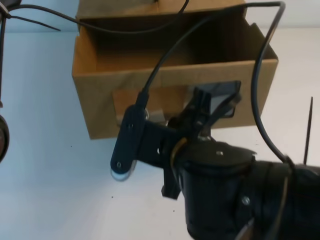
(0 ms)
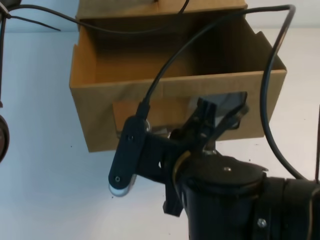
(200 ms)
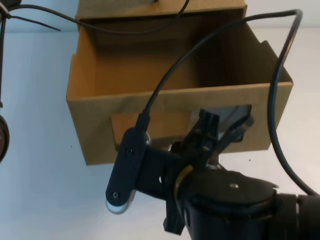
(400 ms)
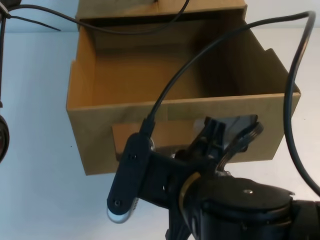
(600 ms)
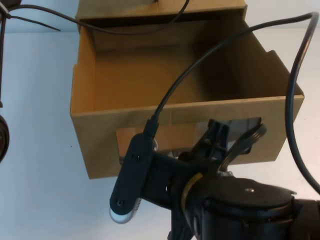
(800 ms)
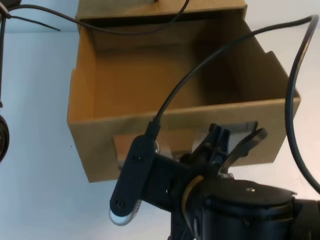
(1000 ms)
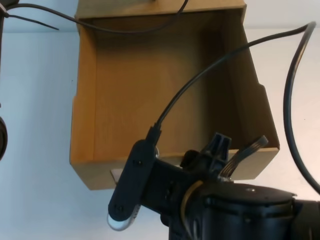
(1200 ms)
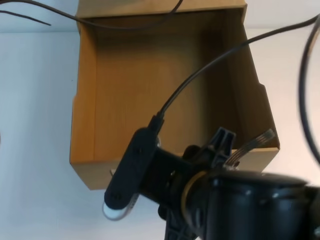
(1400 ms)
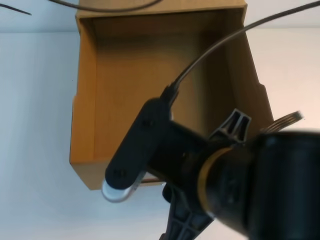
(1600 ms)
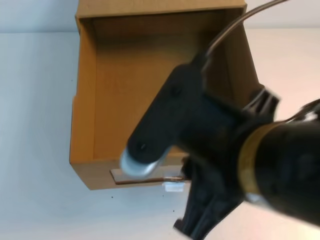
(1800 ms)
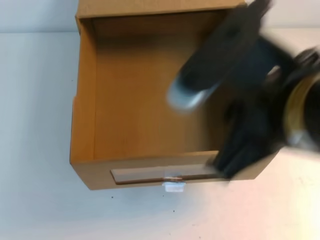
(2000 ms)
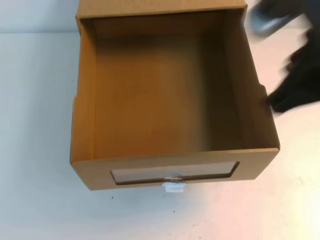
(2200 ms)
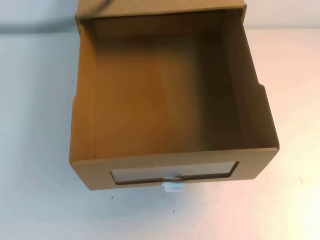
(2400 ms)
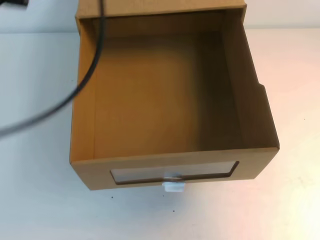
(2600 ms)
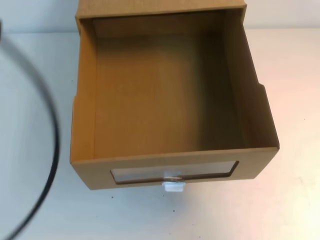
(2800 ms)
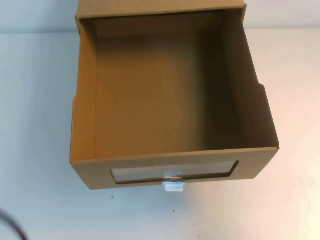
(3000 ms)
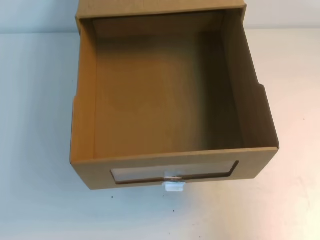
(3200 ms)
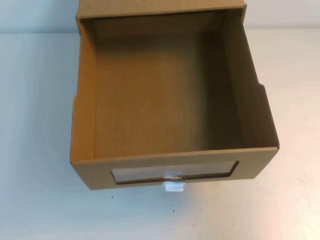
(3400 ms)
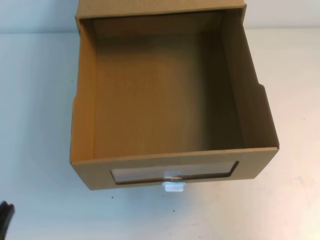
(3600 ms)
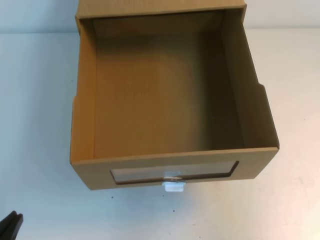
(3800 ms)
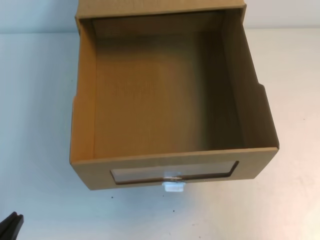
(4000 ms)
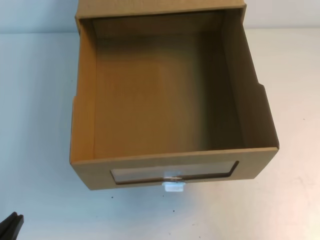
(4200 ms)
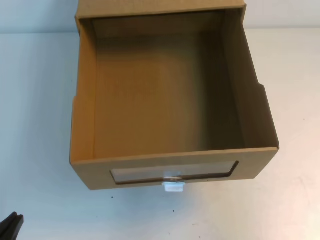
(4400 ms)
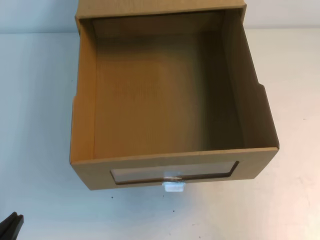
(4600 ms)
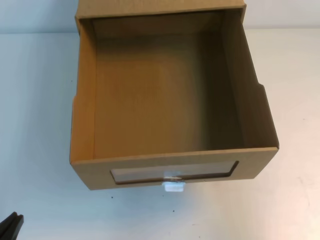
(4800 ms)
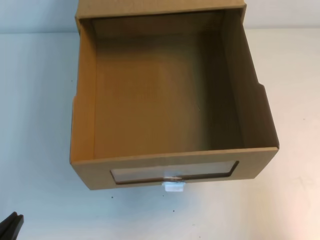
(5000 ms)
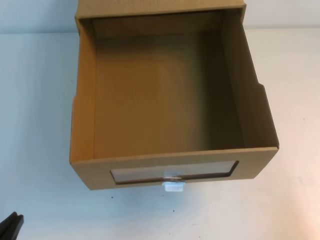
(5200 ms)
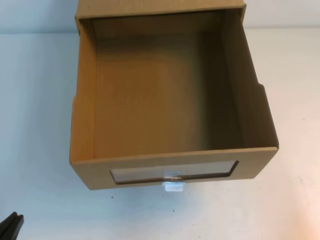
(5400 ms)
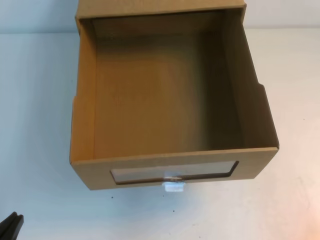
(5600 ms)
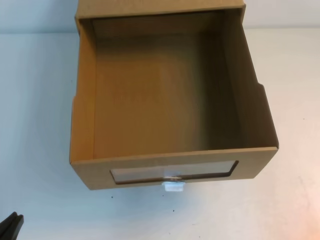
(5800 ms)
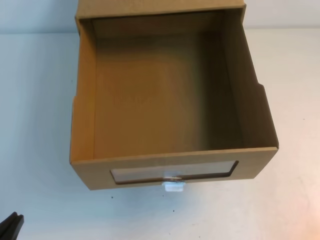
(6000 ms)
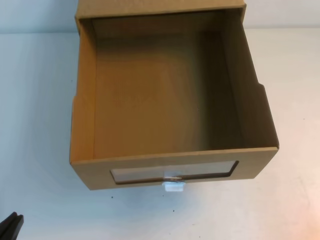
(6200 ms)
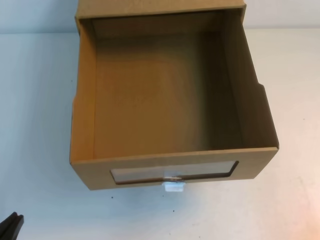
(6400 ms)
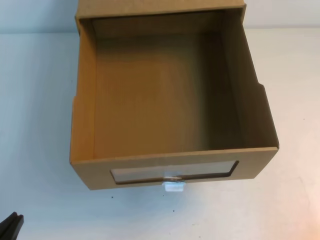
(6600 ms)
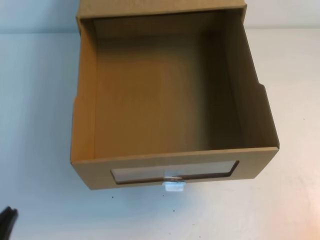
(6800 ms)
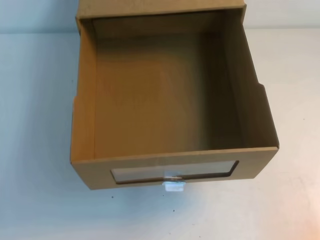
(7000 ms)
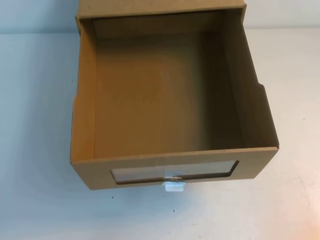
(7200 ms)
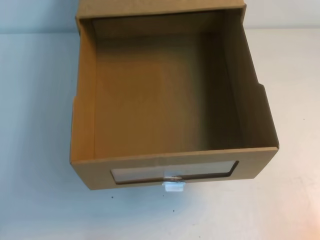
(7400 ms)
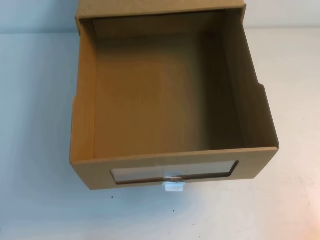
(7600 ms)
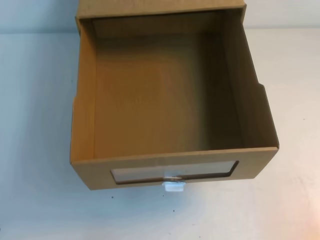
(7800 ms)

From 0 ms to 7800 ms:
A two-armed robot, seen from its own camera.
Task of the whole recording: open the shoebox on the table.
Step, from 0 ms to 7800 ms: Open the shoe box.
From 0 ms to 1600 ms: The right gripper moves backward, approximately 10 cm, and opens.
From 1600 ms to 3200 ms: The right gripper travels to the right by about 25 cm, and closes its fingers. The left gripper travels backward and to the left by roughly 35 cm.
From 3200 ms to 4600 ms: The left gripper heads downward, covering about 20 cm.
From 4600 ms to 6200 ms: The right gripper is displaced downward by some 15 cm.

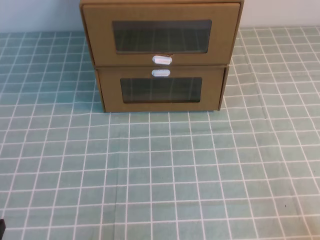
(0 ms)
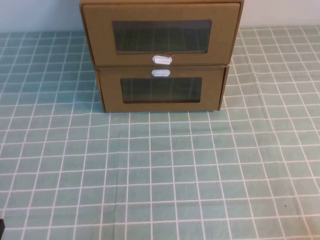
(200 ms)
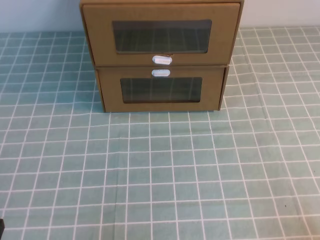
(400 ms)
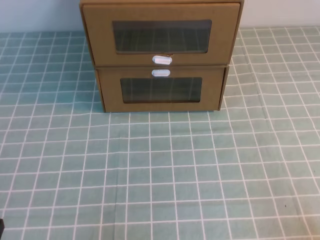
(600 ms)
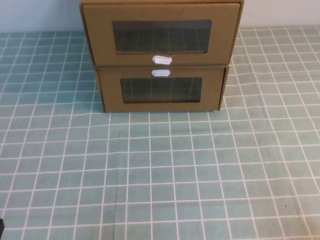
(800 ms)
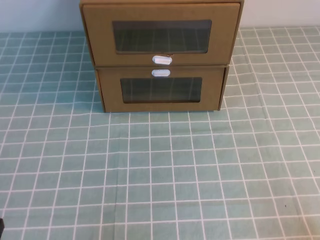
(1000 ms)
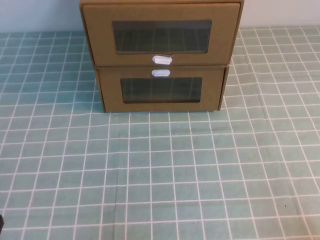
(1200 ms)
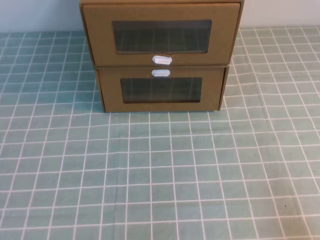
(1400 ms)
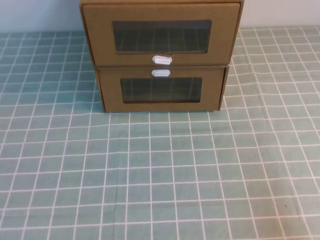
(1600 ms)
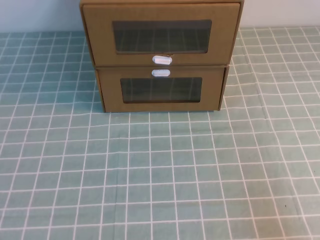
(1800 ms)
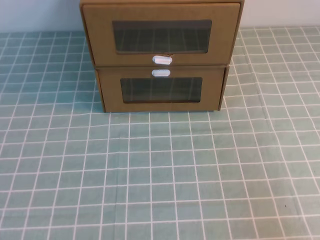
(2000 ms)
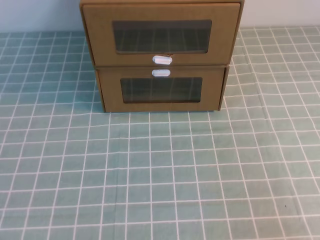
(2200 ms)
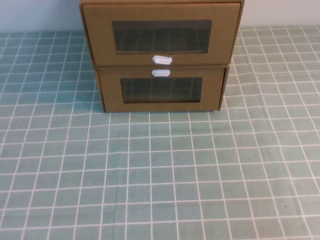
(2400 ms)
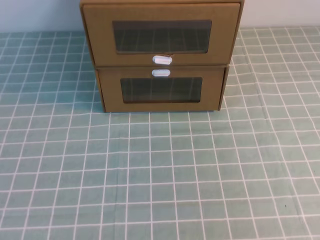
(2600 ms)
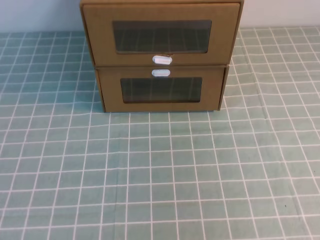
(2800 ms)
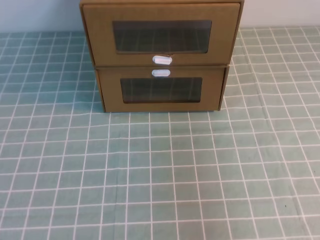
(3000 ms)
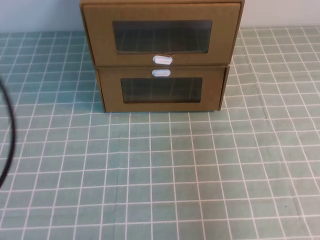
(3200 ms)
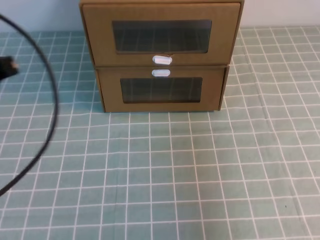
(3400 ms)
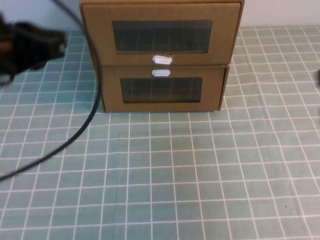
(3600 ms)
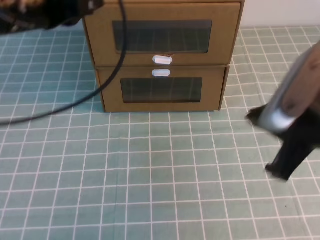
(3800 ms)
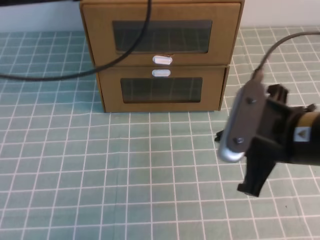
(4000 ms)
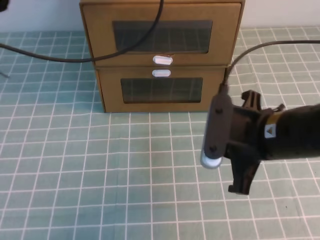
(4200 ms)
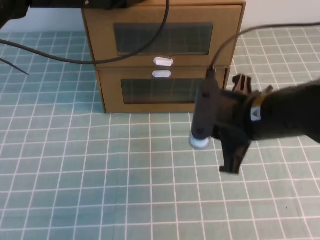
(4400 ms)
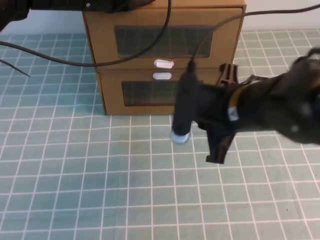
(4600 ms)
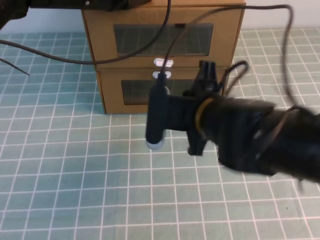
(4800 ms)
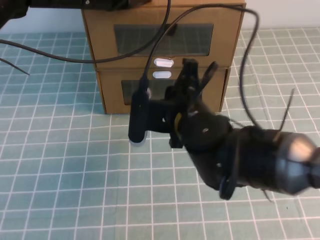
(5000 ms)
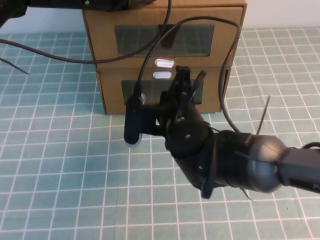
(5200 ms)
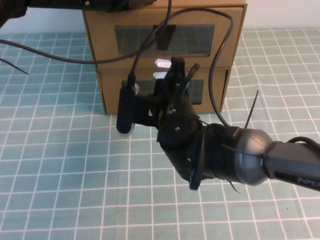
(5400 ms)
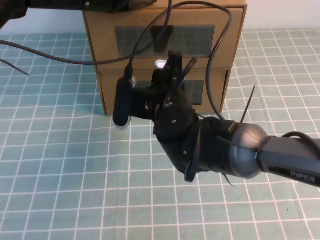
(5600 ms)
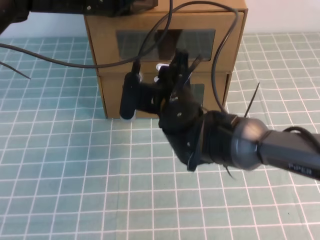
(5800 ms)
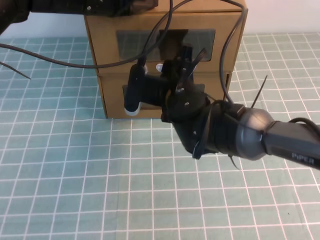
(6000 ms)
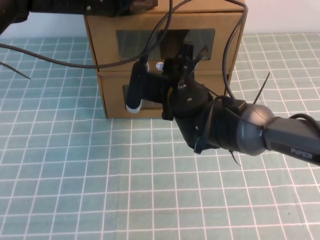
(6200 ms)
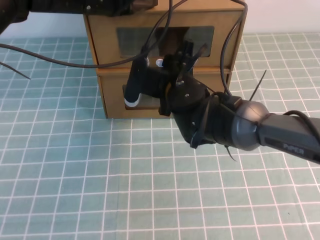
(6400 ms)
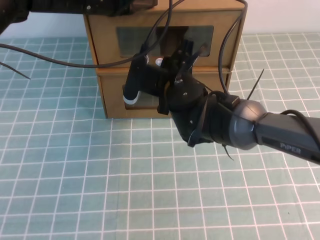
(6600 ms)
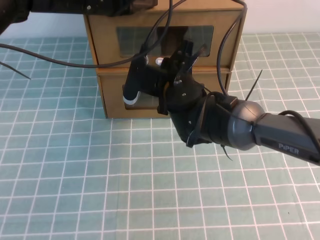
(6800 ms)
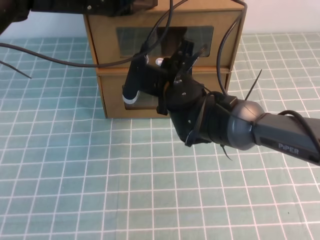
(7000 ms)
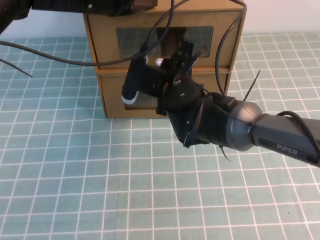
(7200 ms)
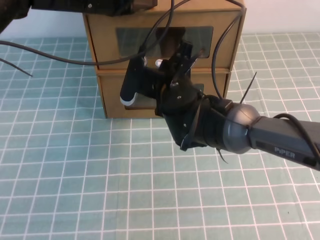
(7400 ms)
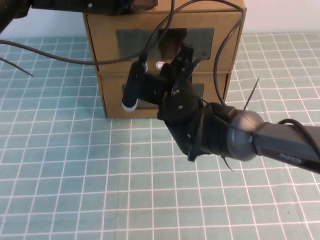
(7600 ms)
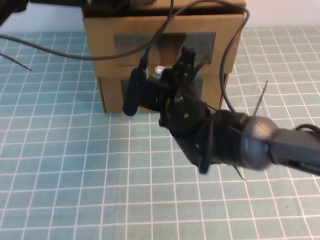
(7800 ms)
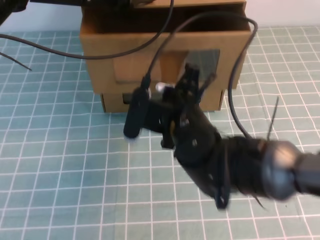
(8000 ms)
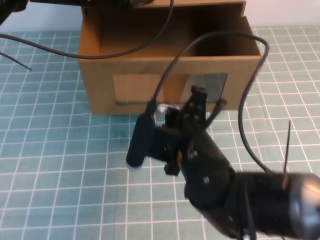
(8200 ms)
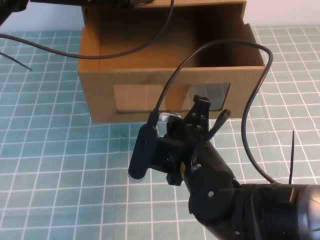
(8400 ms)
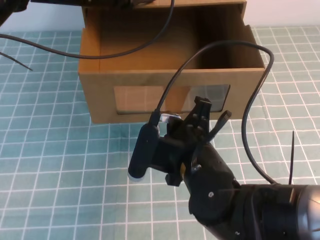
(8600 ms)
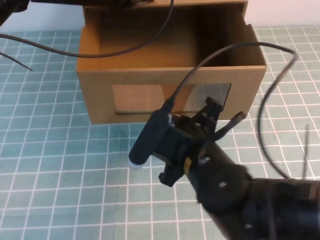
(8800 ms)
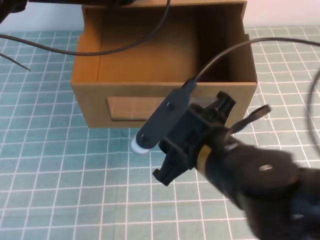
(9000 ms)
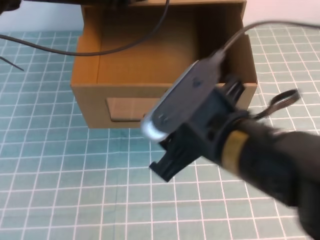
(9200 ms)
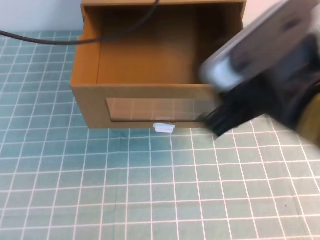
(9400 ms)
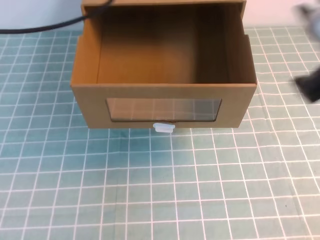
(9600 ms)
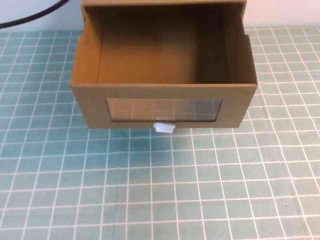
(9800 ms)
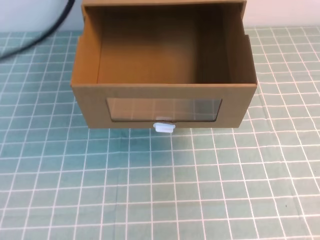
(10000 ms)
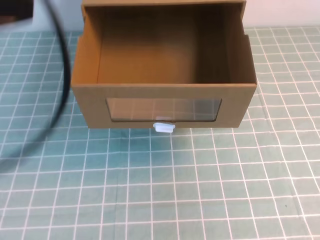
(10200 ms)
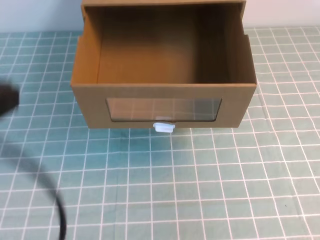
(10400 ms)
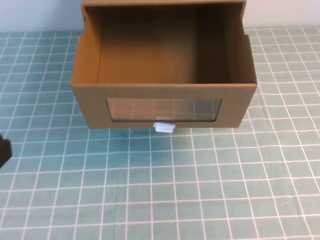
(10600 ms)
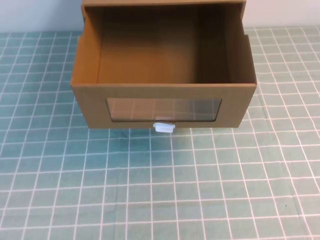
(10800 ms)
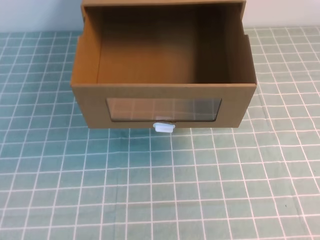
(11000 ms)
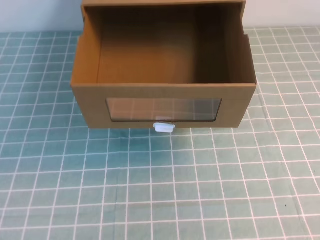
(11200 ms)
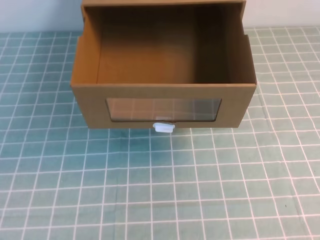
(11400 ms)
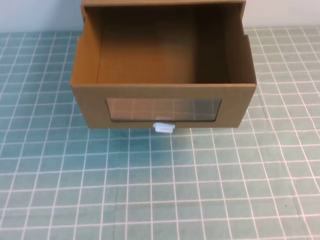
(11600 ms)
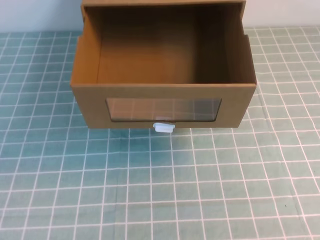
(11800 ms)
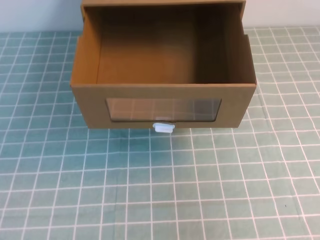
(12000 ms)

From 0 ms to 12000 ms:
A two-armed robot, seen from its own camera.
Task of the whole recording: open the shoebox on the cyan tablecloth.
From 1600 ms to 3000 ms: The two grippers go approximately 20 cm upward.
From 3000 ms to 4400 ms: The right gripper heads to the left, forward and downward, covering about 30 cm; the left gripper heads forward and to the right, covering approximately 40 cm.
From 4400 ms to 6000 ms: The right gripper is displaced to the left and forward by some 15 cm, and opens.
From 6000 ms to 7600 ms: The right gripper closes.
From 7600 ms to 9000 ms: The right gripper shifts some 15 cm backward, and opens.
From 9000 ms to 10400 ms: The right gripper goes roughly 25 cm to the right, backward and upward, and closes. The left gripper heads backward, covering some 30 cm.
From 10400 ms to 12000 ms: The left gripper travels downward by some 15 cm.

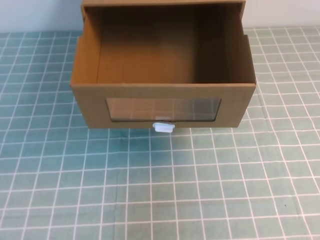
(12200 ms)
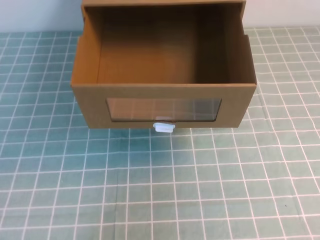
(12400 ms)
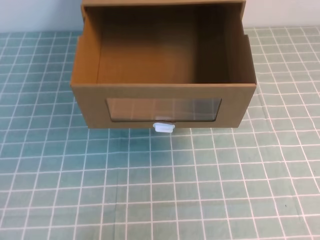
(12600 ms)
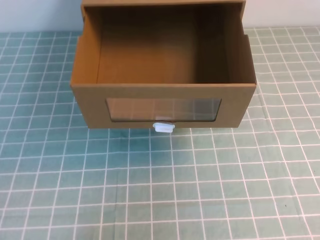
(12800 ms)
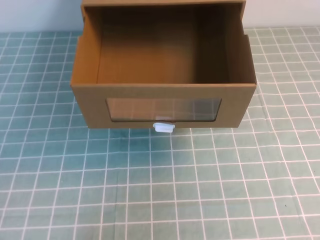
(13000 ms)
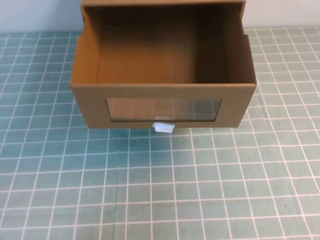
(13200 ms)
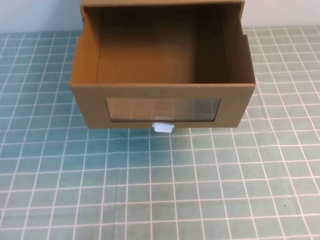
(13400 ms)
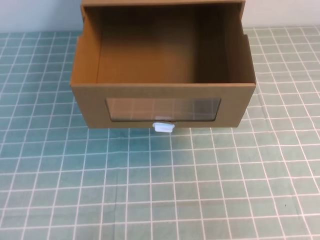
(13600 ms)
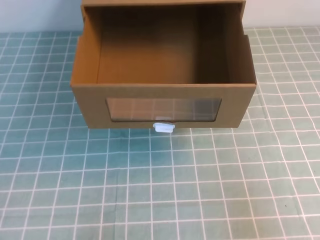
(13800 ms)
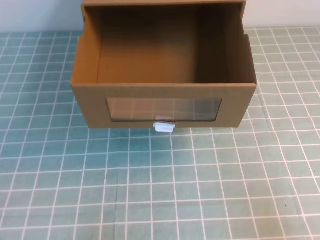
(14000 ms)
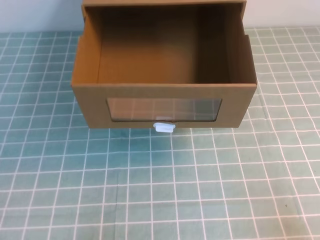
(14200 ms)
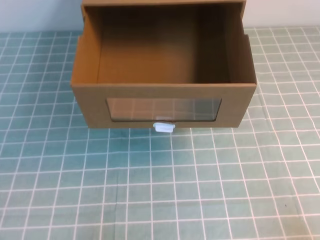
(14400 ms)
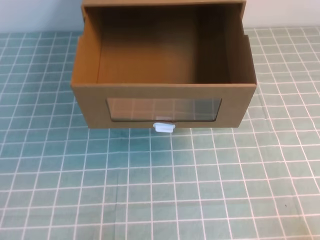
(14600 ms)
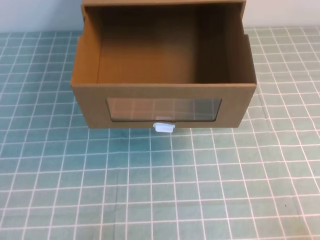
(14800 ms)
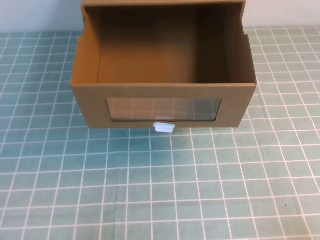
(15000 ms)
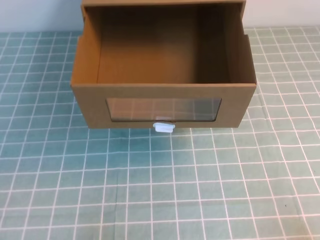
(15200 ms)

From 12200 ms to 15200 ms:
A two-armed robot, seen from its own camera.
Task of the whole recording: open the shoebox on the cyan tablecloth.
From 12200 ms to 13800 ms: The right gripper is displaced downward and to the right by roughly 10 cm.
From 13800 ms to 15200 ms: The right gripper moves downward, approximately 15 cm.
